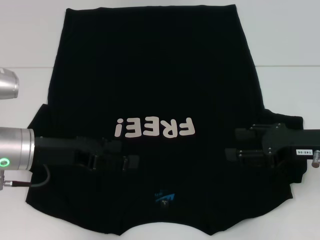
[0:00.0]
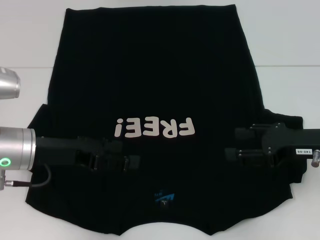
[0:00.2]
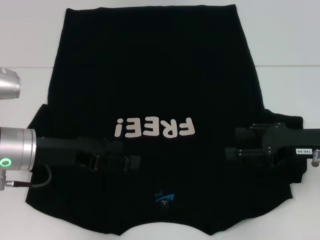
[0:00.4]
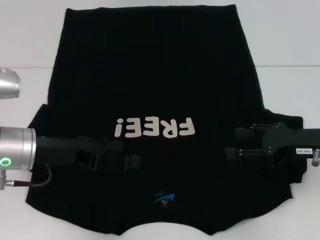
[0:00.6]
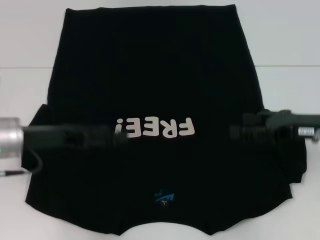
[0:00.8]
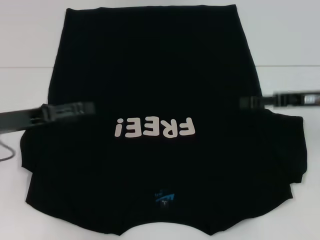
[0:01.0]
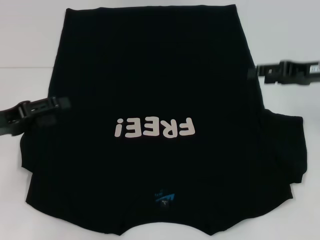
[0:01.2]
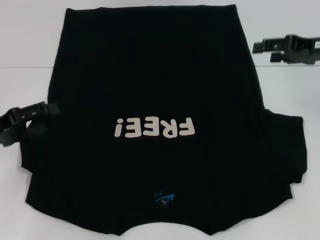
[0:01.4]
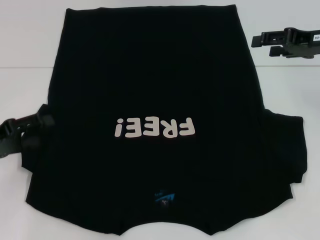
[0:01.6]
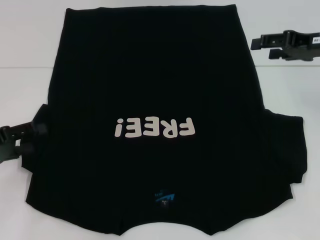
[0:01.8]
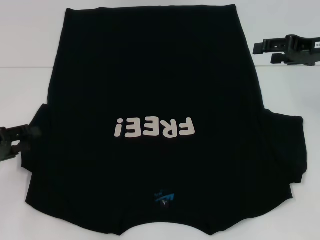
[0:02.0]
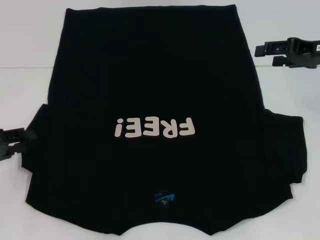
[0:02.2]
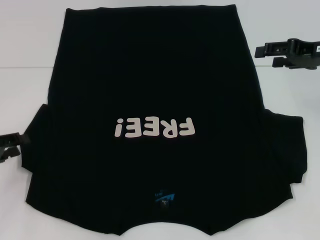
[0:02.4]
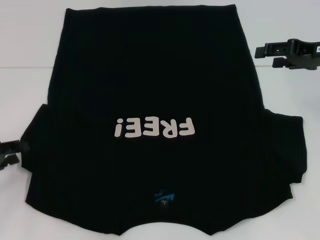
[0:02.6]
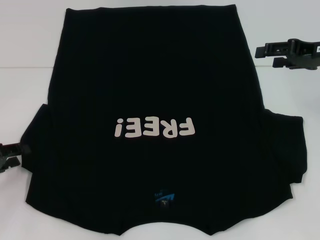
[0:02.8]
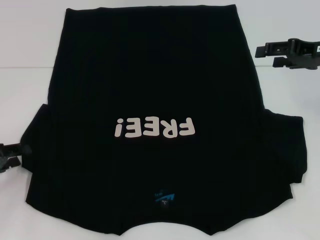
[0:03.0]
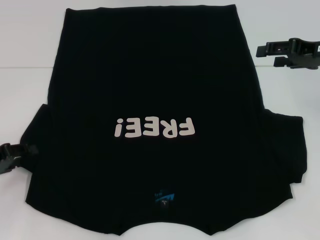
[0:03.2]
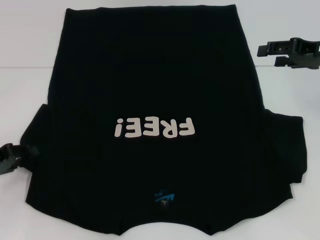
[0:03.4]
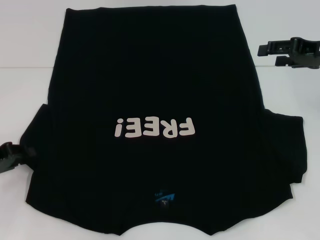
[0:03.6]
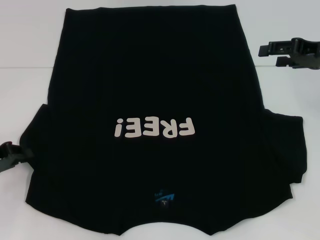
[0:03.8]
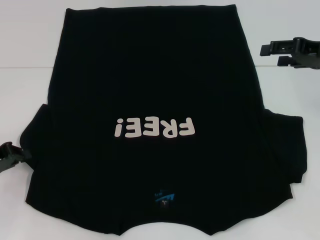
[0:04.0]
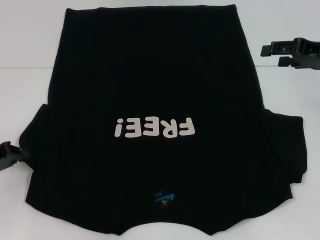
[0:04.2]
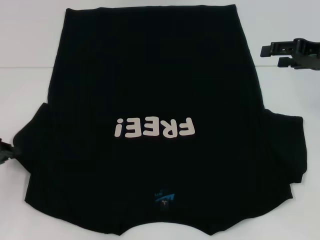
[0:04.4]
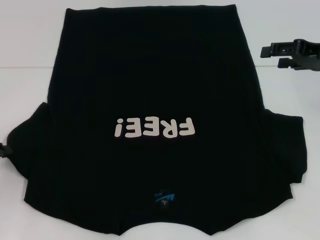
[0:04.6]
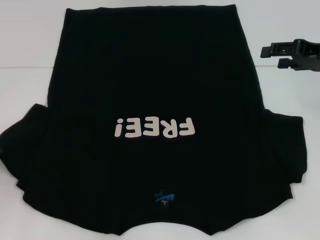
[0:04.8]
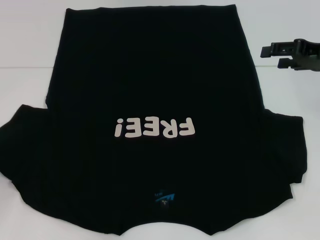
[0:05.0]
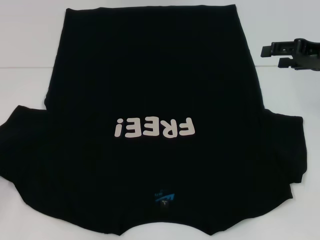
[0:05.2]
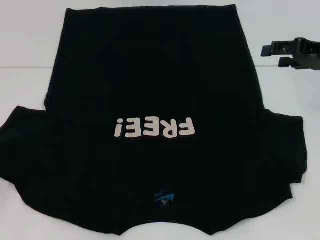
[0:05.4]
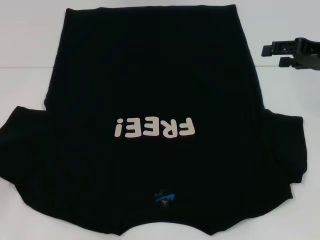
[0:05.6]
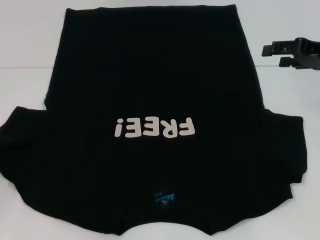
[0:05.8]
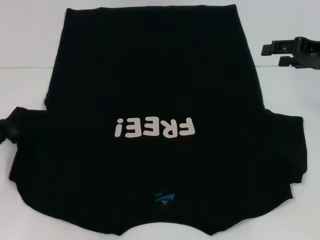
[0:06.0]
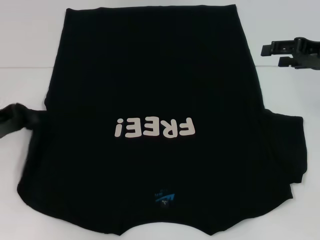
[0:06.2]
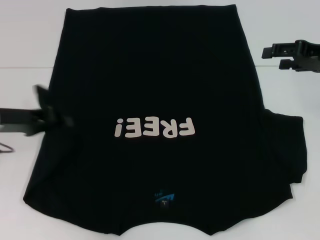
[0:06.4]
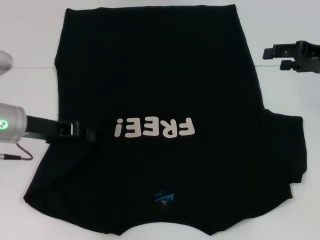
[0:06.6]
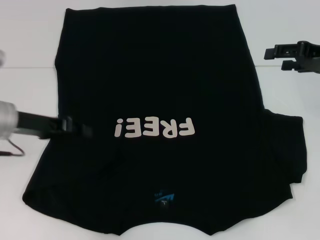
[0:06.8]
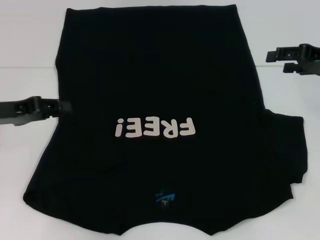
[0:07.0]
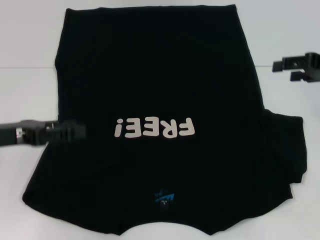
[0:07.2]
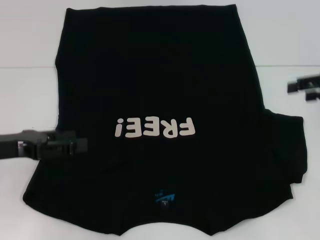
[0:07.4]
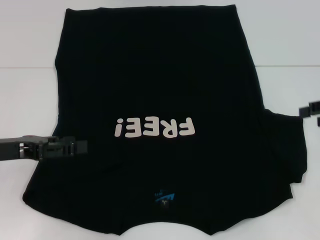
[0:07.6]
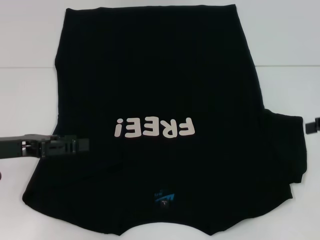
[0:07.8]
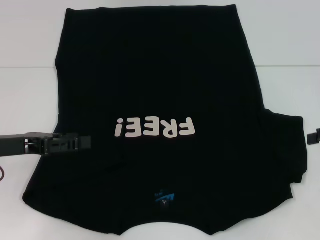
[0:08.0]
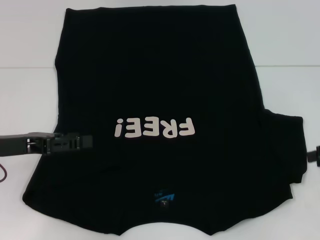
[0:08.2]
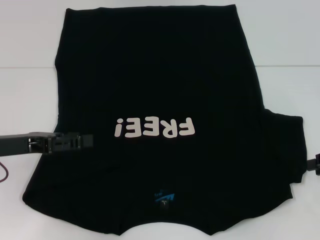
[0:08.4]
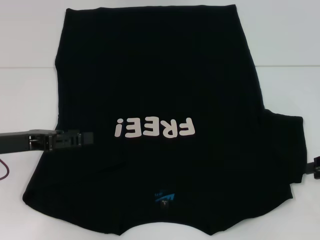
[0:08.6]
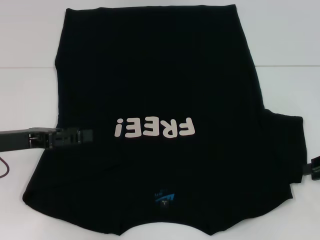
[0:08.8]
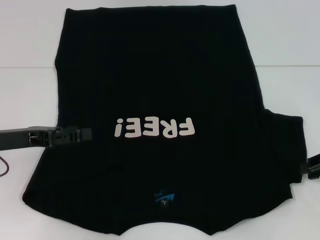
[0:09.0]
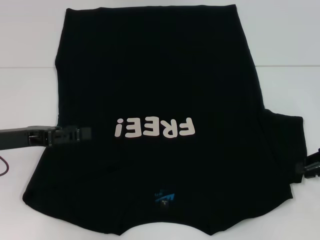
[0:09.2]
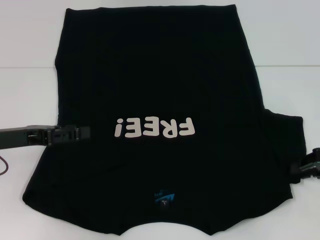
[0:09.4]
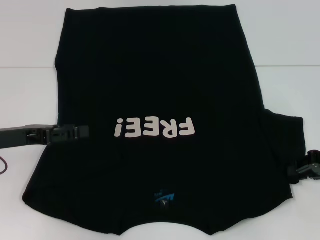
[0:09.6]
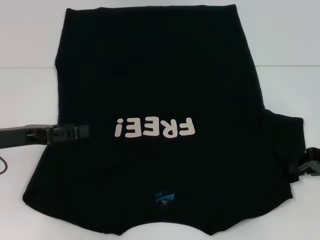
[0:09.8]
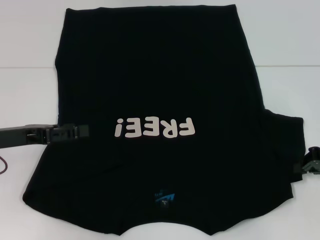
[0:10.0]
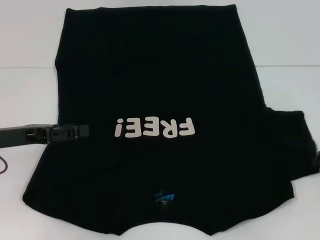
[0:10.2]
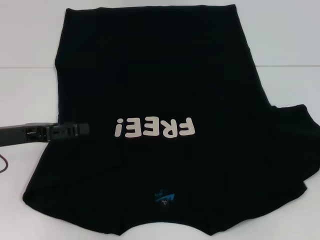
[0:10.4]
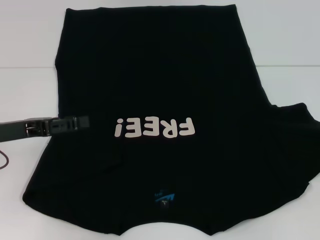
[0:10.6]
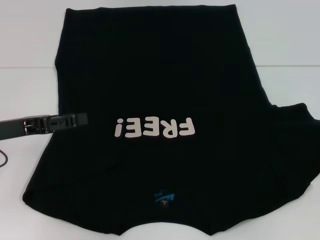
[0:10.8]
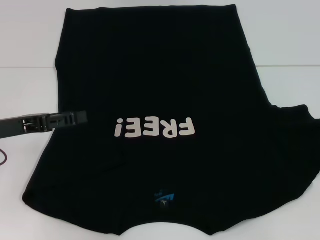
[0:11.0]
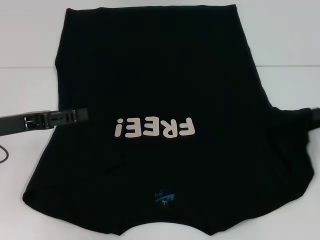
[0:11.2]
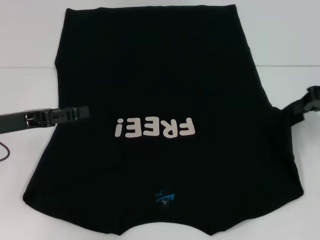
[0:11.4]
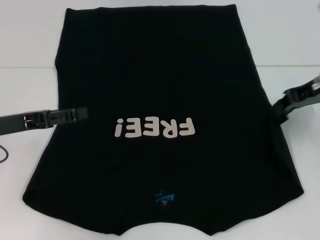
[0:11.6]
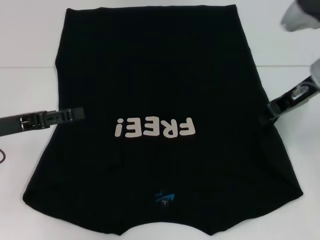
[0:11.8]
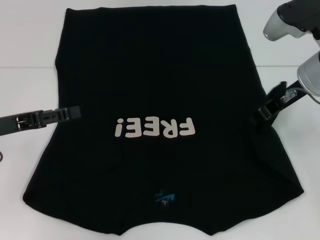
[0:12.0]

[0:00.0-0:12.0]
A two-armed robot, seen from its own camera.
Step, 0:00.0 to 0:07.0: Fold the bottom left sleeve with your left hand.
0:00.0 to 0:01.6: The left gripper goes about 10 cm to the left; the right gripper travels forward and upward by approximately 15 cm.
0:01.6 to 0:03.0: There are only small adjustments of the grippers.
0:03.0 to 0:04.4: The left gripper closes up.
0:04.4 to 0:06.0: The grippers move only a little.
0:06.0 to 0:07.6: The left gripper goes roughly 5 cm to the right, and opens its fingers; the right gripper heads to the right and backward, covering roughly 10 cm.
0:07.6 to 0:09.0: The right gripper goes roughly 5 cm downward, and closes up.
0:09.0 to 0:10.4: The grippers stay close to where they were, moving slightly.
0:10.4 to 0:12.0: The right gripper travels to the left by about 15 cm.

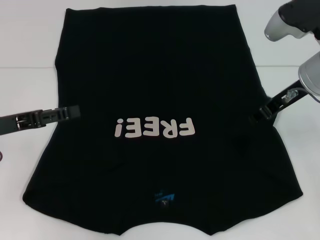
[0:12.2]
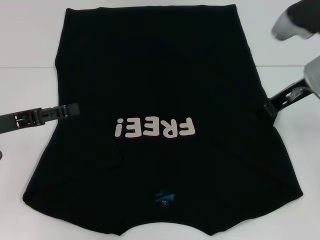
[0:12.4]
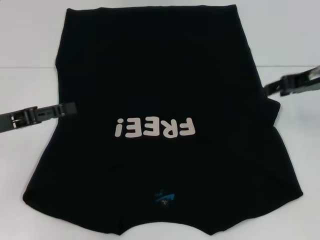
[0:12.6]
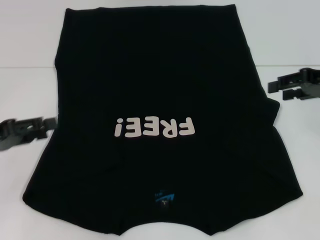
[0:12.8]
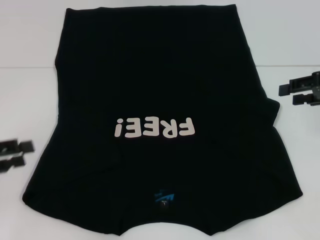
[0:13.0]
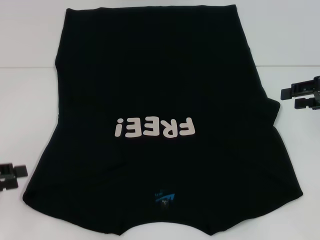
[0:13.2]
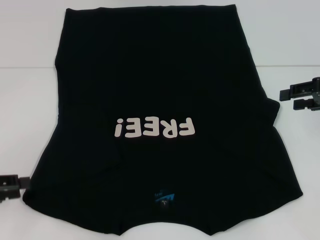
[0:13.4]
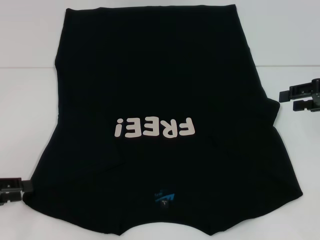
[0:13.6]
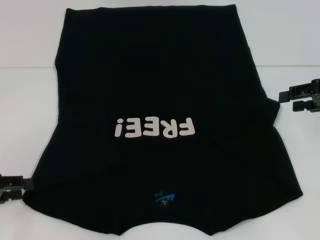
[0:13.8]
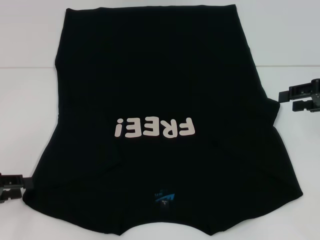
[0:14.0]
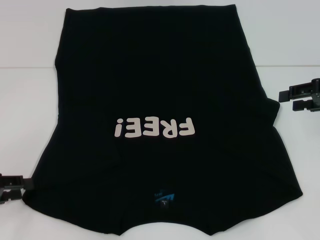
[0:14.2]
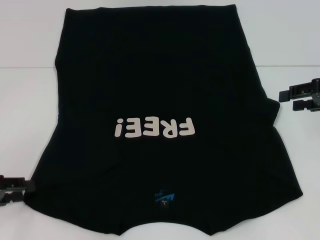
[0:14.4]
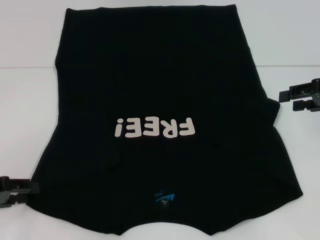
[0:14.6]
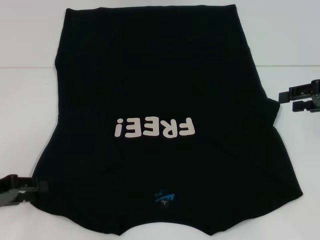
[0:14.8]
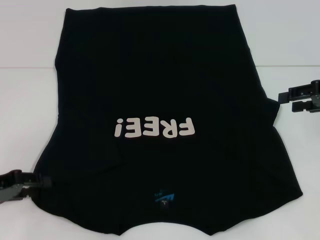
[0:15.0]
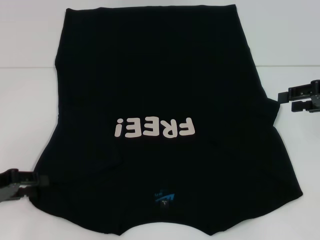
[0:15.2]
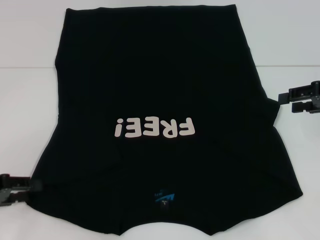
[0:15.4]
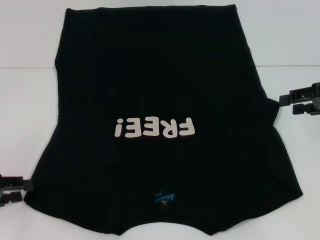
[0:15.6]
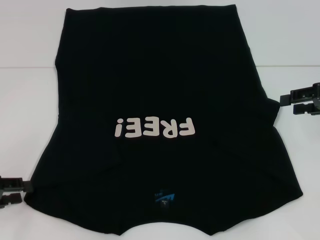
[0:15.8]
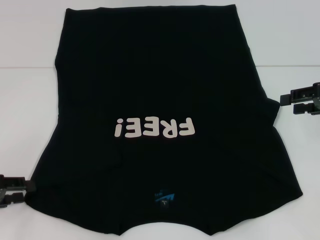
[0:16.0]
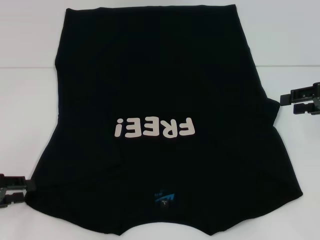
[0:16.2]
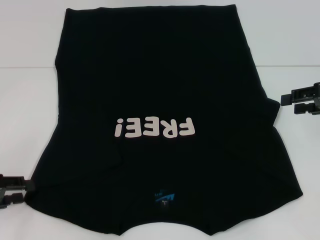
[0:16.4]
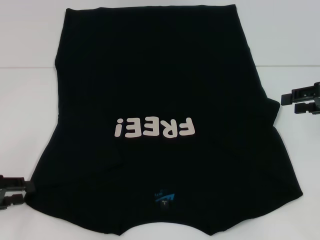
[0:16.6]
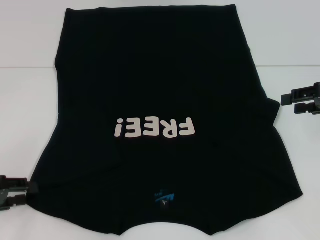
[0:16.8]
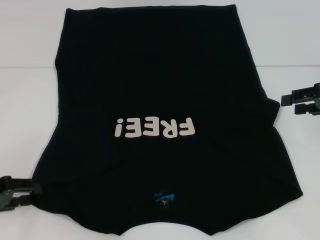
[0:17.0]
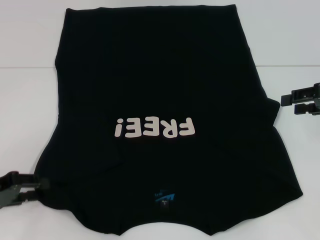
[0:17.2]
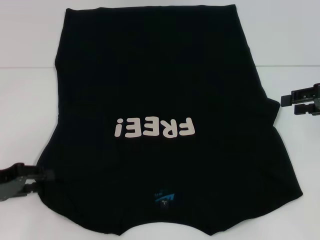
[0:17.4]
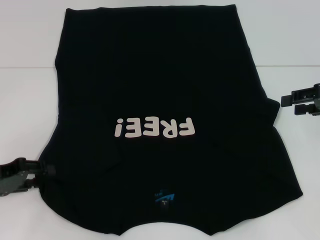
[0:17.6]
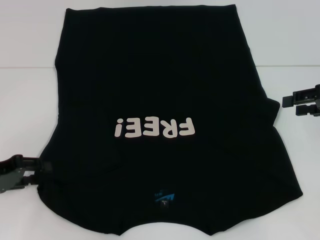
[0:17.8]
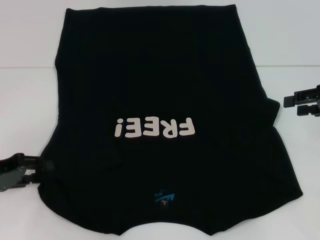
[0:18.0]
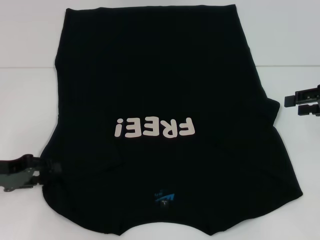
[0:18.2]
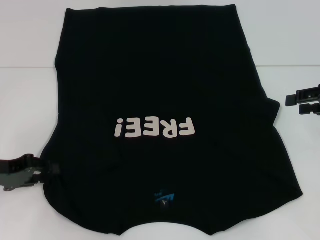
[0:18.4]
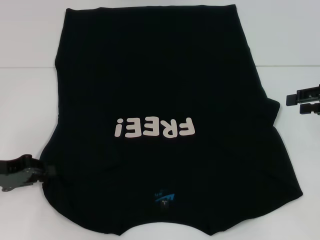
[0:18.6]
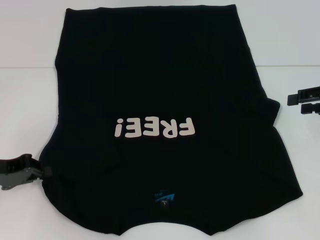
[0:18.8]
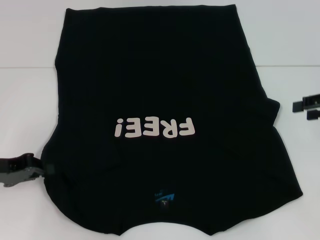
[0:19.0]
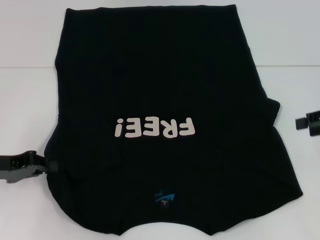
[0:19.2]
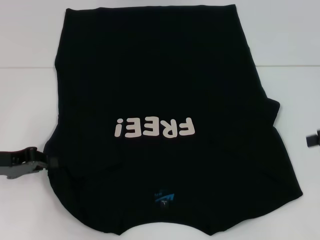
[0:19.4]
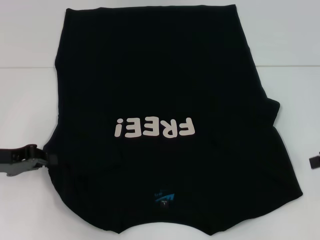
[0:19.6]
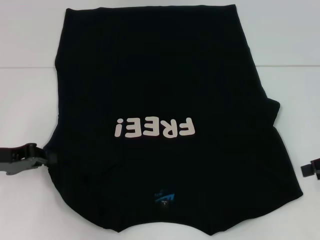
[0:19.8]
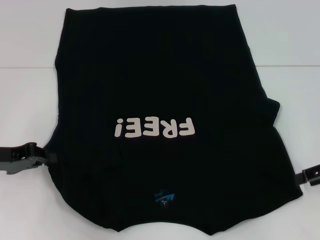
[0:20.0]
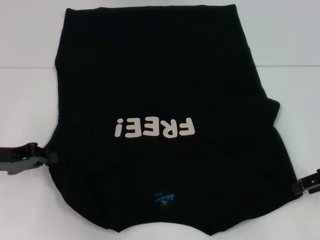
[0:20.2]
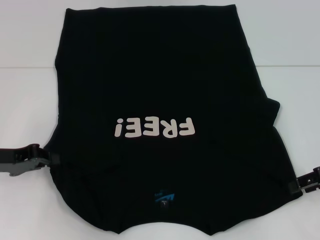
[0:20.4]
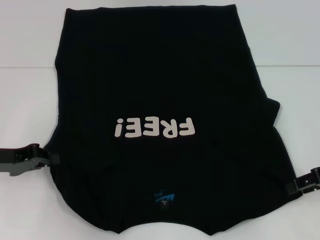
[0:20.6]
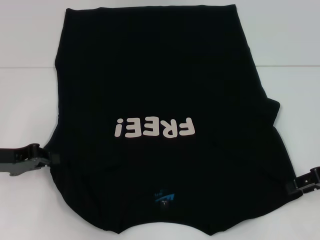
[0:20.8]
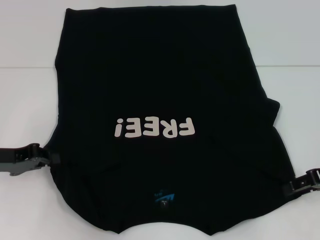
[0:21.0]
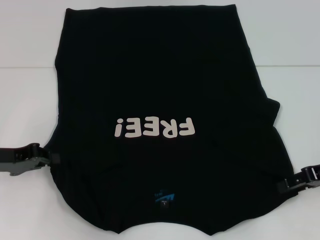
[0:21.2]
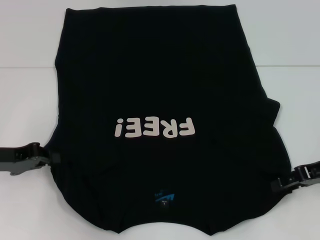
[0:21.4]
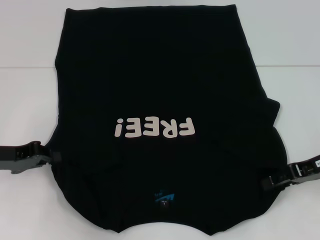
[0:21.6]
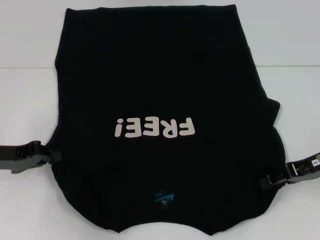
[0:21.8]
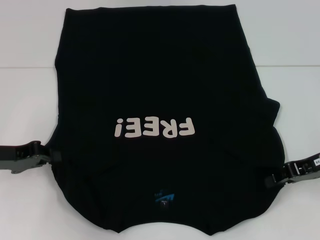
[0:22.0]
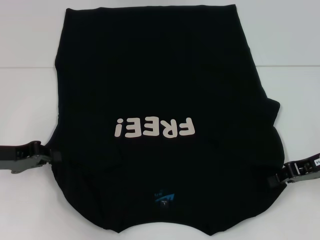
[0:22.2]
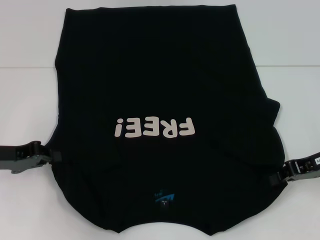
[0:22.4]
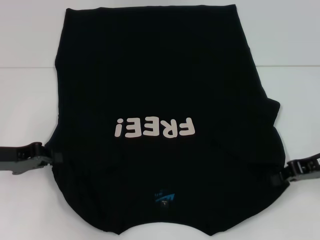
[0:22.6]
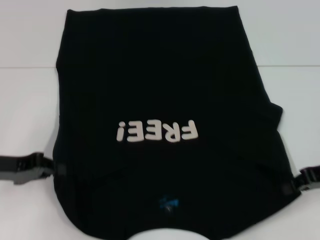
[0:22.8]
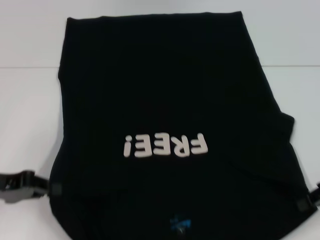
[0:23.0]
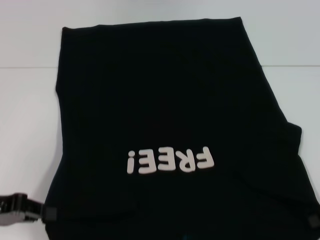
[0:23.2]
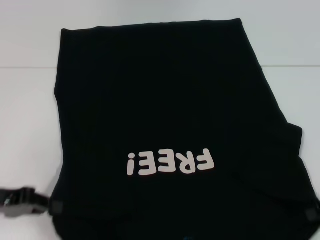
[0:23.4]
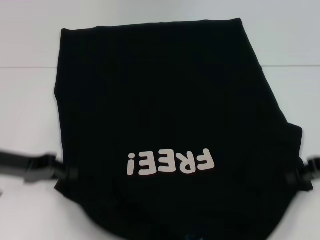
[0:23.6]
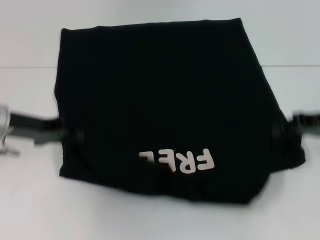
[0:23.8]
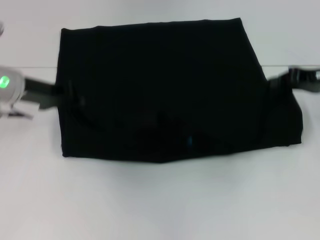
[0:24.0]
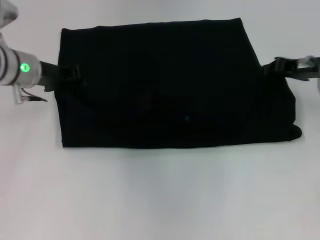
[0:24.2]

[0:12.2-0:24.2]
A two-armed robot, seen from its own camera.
Step, 0:12.4 to 0:19.2: Grab the bottom left corner with your left hand.
Step, 0:19.4 to 0:23.0: Grab the bottom right corner with your right hand.
0:12.2 to 0:13.8: The left gripper goes approximately 10 cm backward and to the left. The right gripper goes roughly 10 cm to the right, and opens up.
0:13.8 to 0:16.6: There are only small adjustments of the grippers.
0:16.6 to 0:18.2: The left gripper shifts by about 5 cm.
0:18.2 to 0:19.8: The left gripper closes up. The right gripper shifts by about 5 cm.
0:19.8 to 0:21.2: The right gripper shifts by approximately 5 cm.
0:21.2 to 0:22.6: The right gripper closes up.
0:22.6 to 0:24.2: The left gripper goes about 15 cm forward, to the right and upward. The right gripper goes about 10 cm forward.
